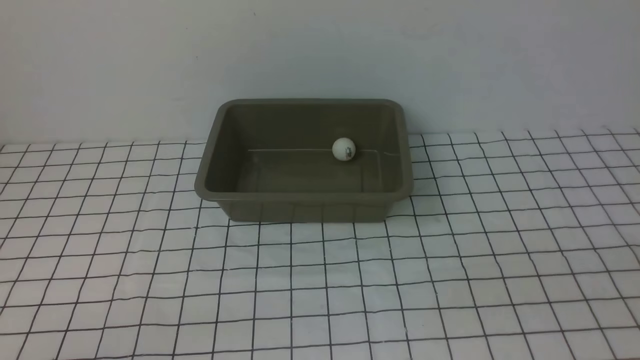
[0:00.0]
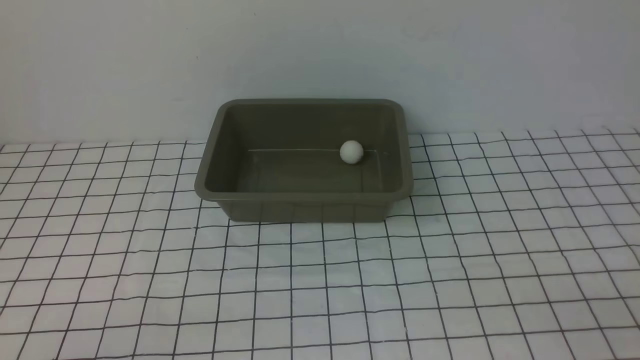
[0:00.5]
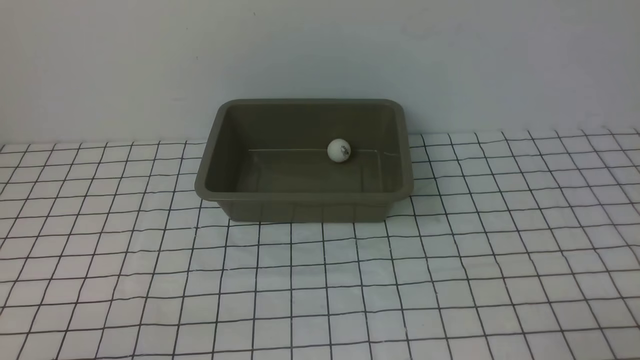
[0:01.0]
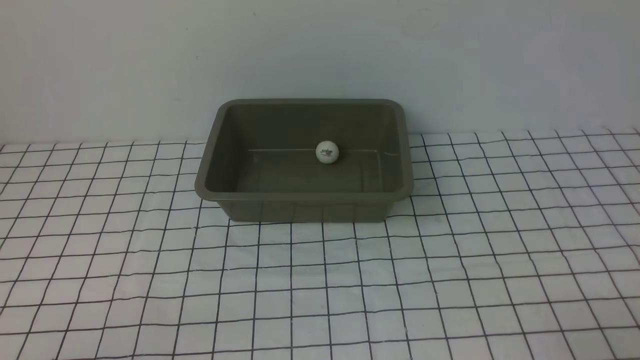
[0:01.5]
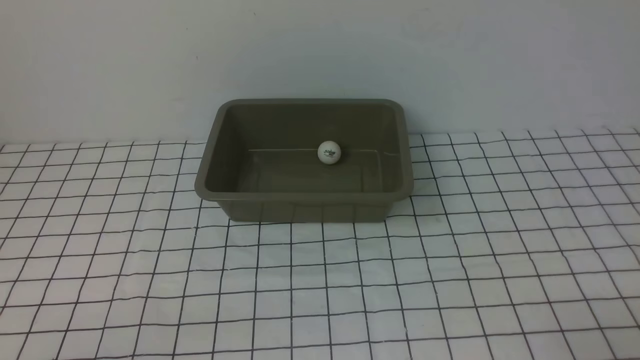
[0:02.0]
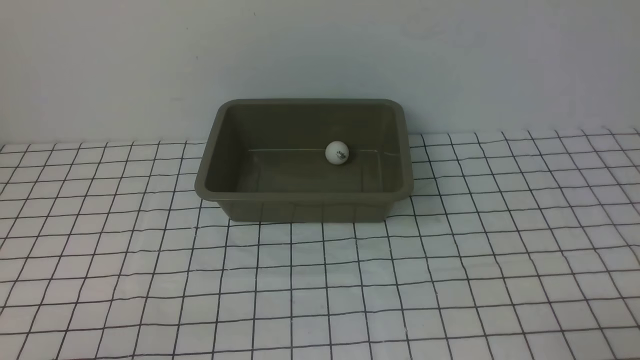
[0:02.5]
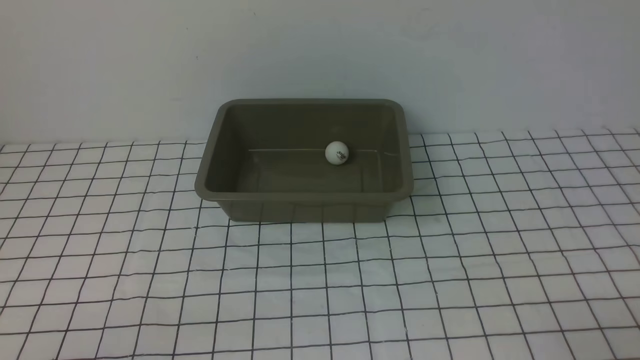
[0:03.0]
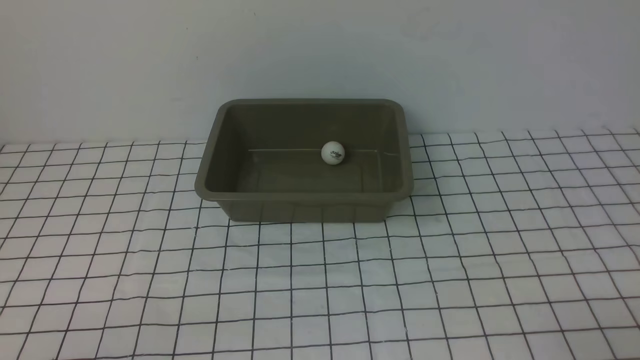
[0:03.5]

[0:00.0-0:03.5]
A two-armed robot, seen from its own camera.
2.0 to 3.5 s: Both grippers stay about where they are.

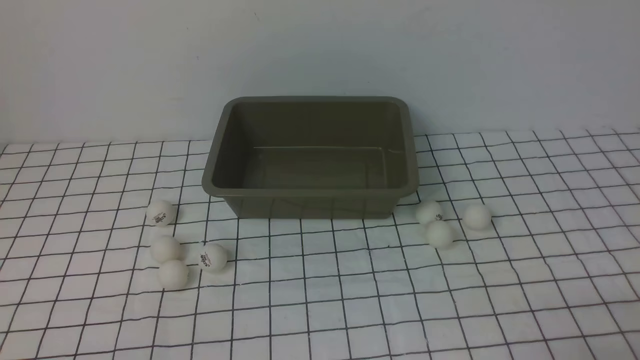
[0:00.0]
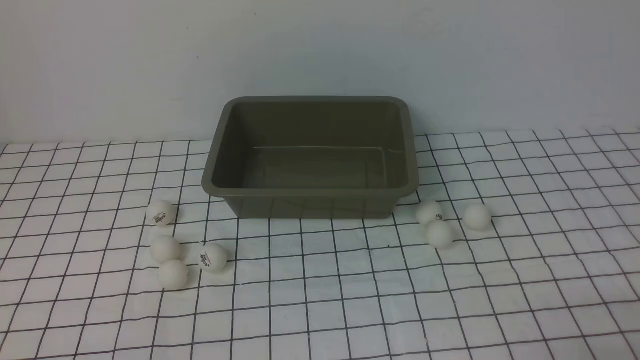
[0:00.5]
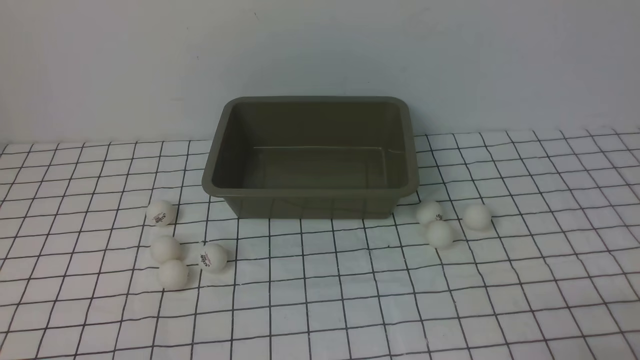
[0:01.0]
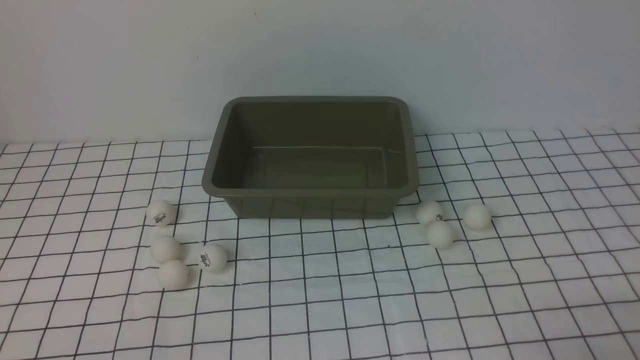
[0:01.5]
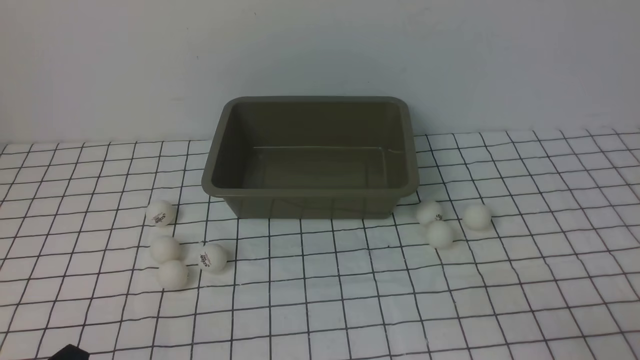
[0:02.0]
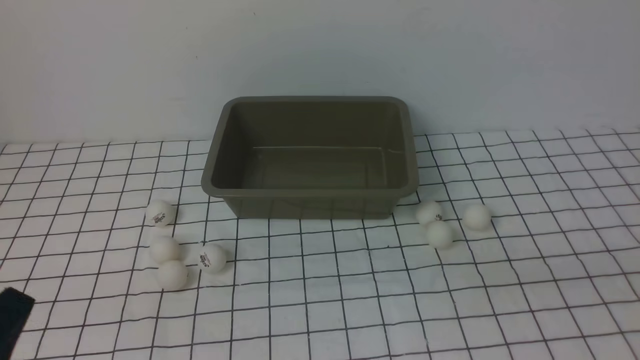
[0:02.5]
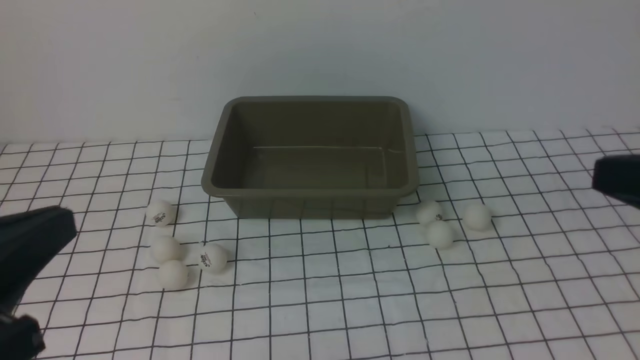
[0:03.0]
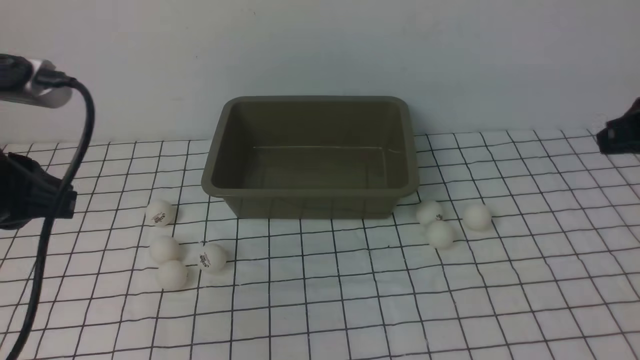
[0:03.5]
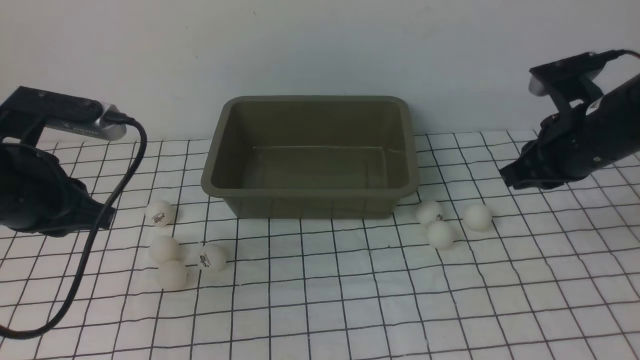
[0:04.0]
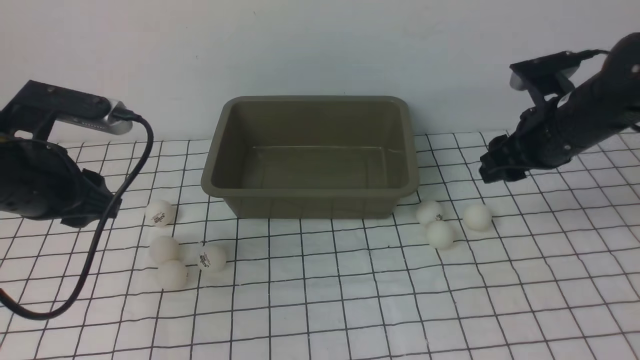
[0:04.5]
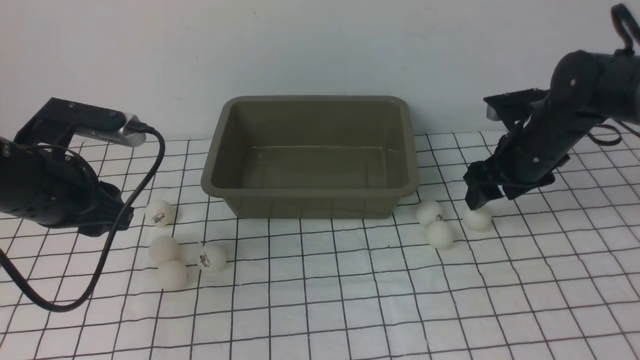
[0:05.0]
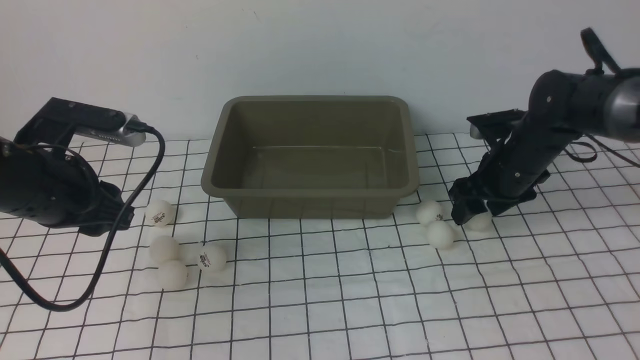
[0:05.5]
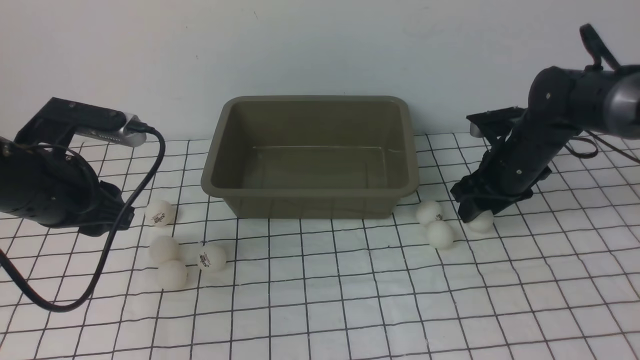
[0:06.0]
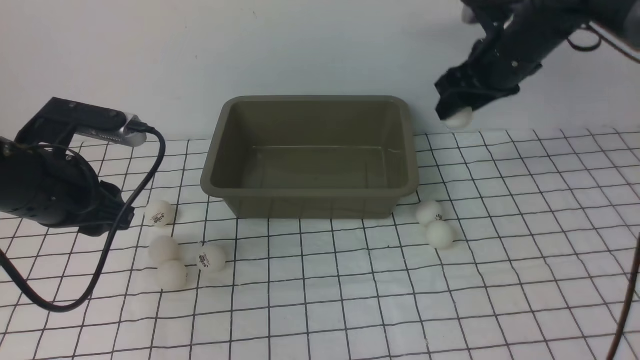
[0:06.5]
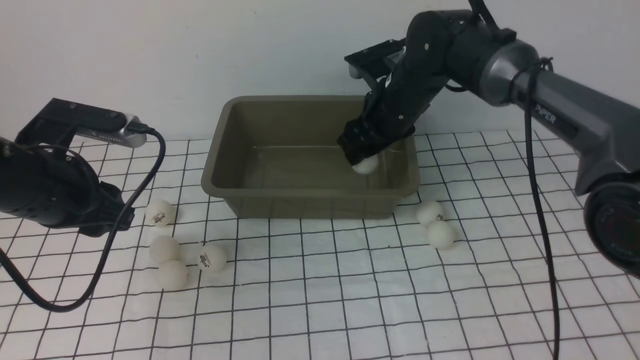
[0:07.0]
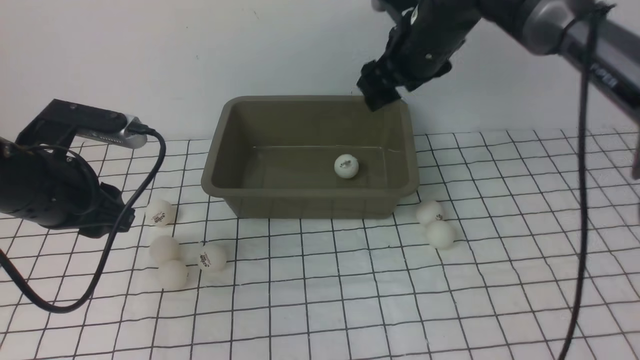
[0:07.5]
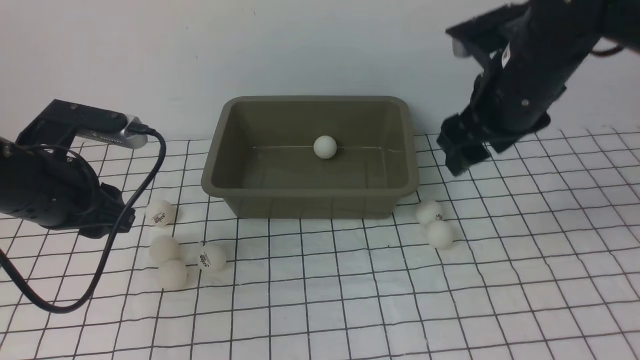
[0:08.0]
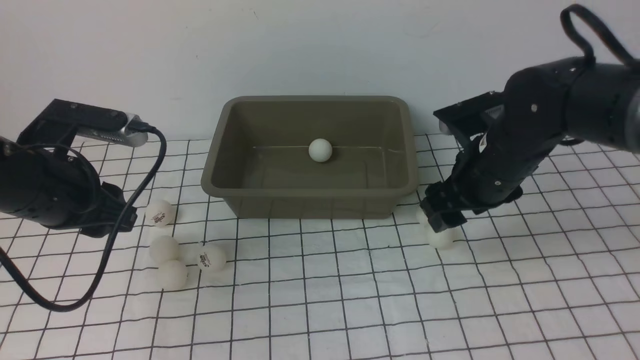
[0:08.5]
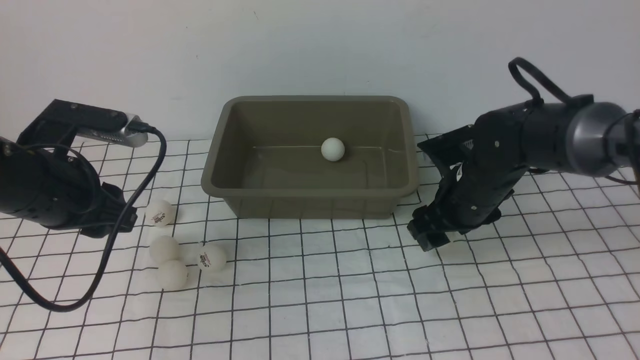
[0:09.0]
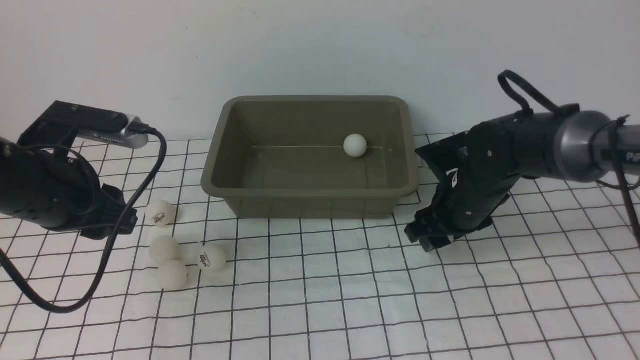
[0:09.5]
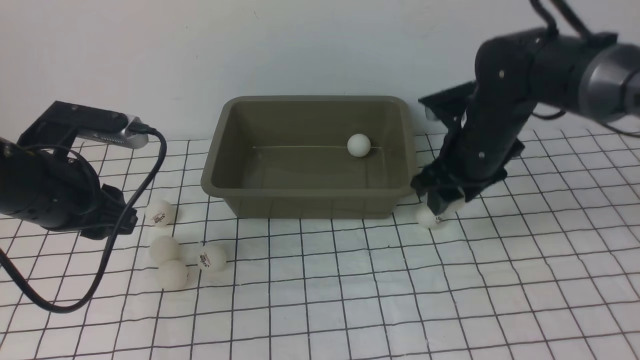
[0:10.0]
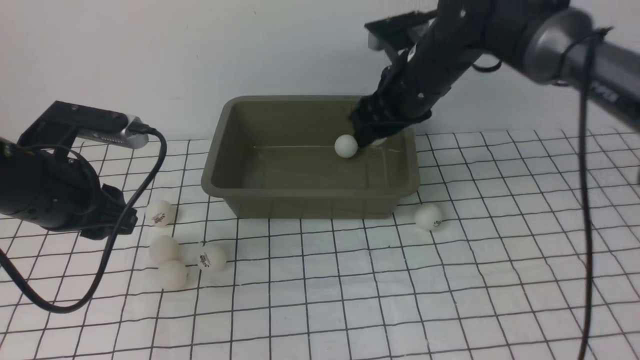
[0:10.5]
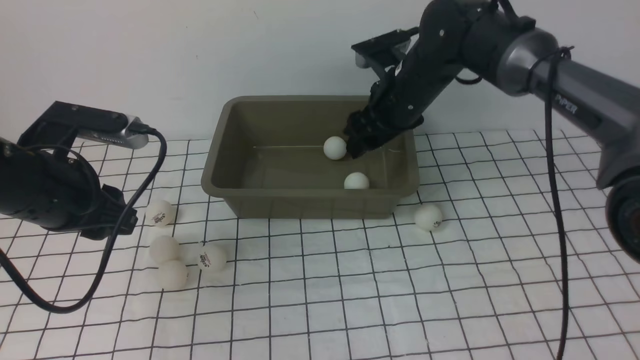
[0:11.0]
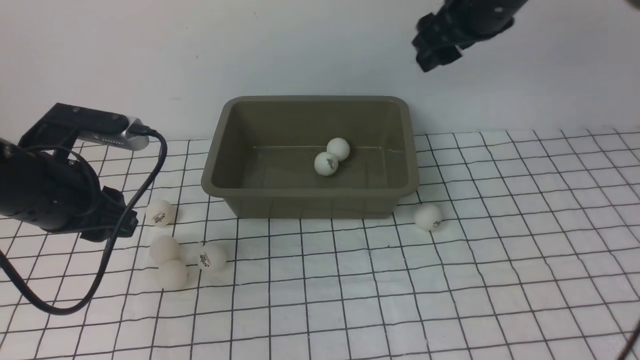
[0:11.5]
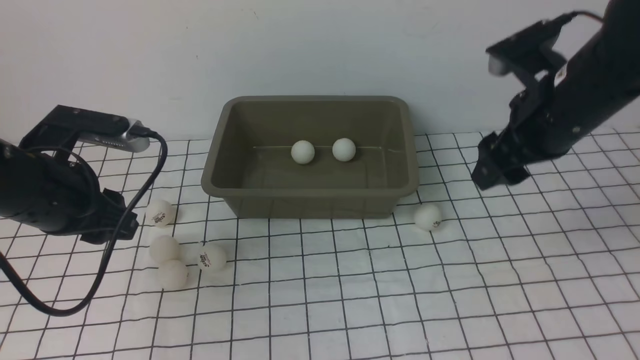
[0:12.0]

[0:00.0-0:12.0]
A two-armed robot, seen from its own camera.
Step, 0.0 to 6.0 s: use the right arm to clamp the table tennis ball closest to it.
Step, 6.5 to 7.0 s: use the right arm to put the table tennis ball into the box.
Step, 7.5 to 10.0 s: use the right arm to clamp the table tennis ball closest to it.
Step, 10.5 to 11.0 s: use the right arm to put the table tennis ball into the box.
2.0 to 4.0 s: The right gripper is displaced forward by roughly 25 cm. The left gripper heads forward and upward, covering approximately 25 cm.
4.0 to 6.0 s: The right gripper heads downward and forward, covering roughly 15 cm, and opens. The left gripper ends up approximately 5 cm from where it was, and opens its fingers.
6.0 to 8.0 s: The right gripper travels upward, backward and to the left by about 15 cm.
8.0 to 10.0 s: The right gripper reaches roughly 15 cm downward, then returns.
10.0 to 12.0 s: The right gripper goes some 10 cm to the right and upward.

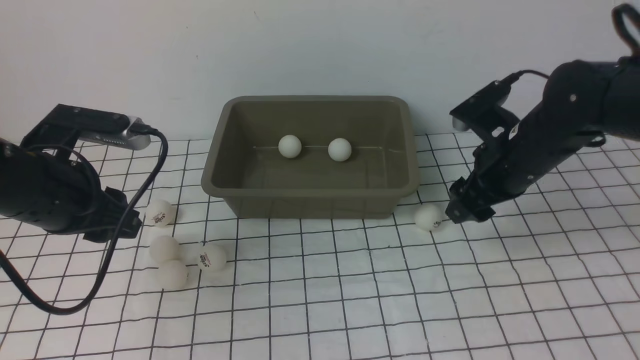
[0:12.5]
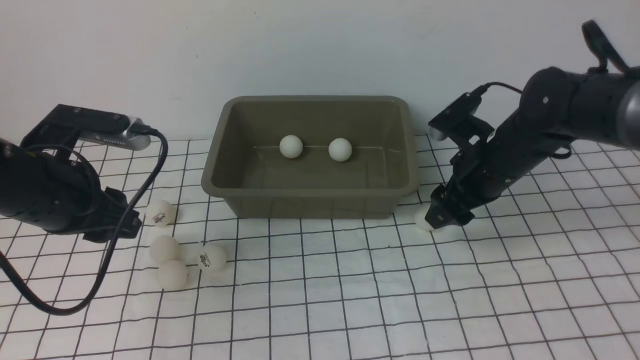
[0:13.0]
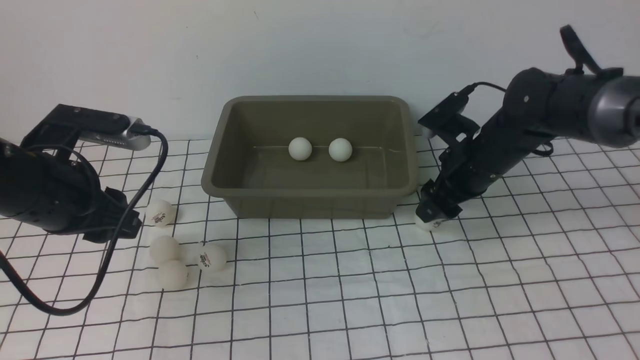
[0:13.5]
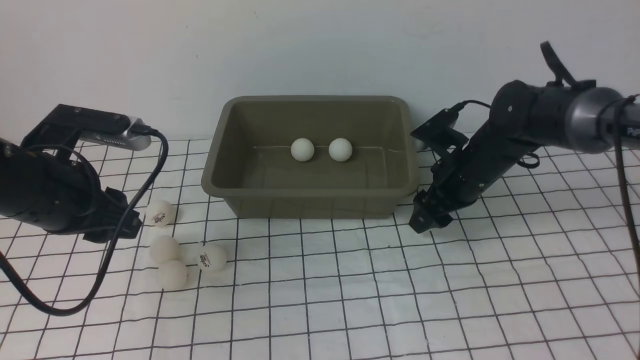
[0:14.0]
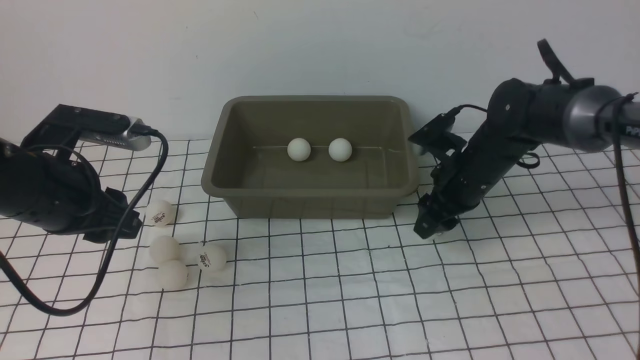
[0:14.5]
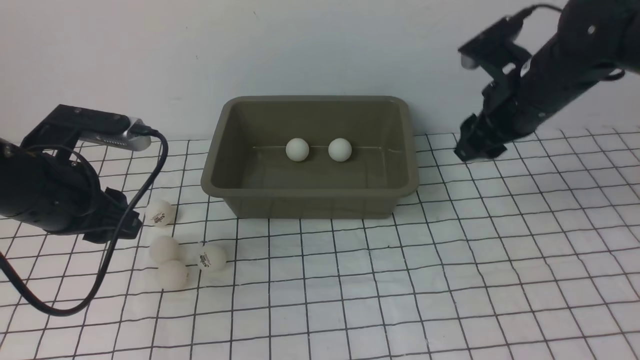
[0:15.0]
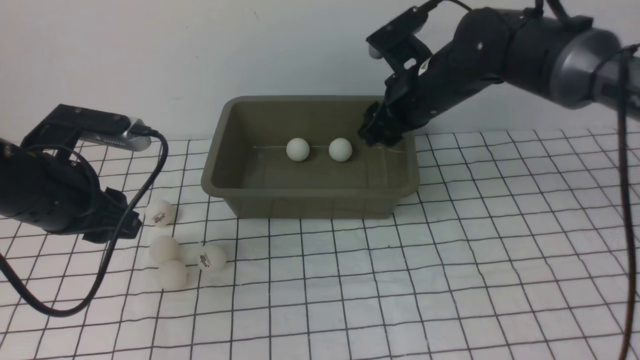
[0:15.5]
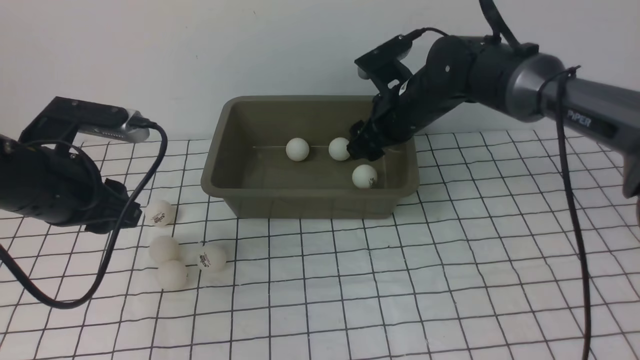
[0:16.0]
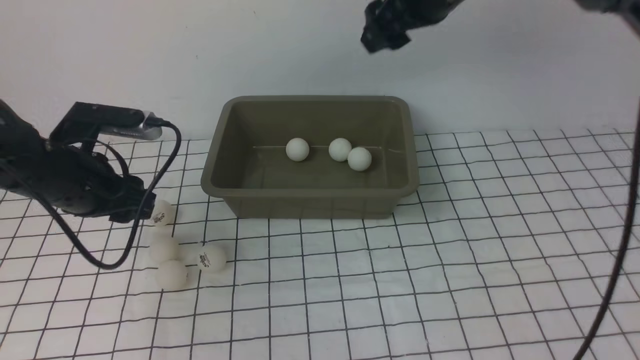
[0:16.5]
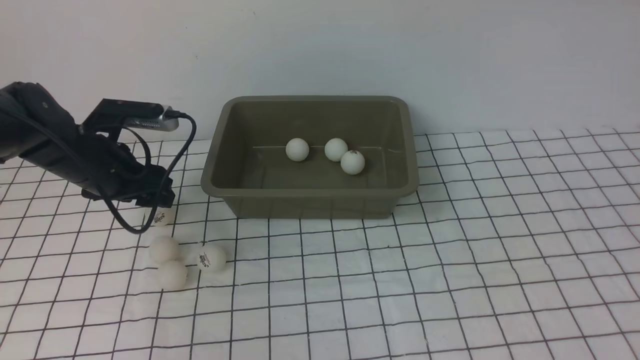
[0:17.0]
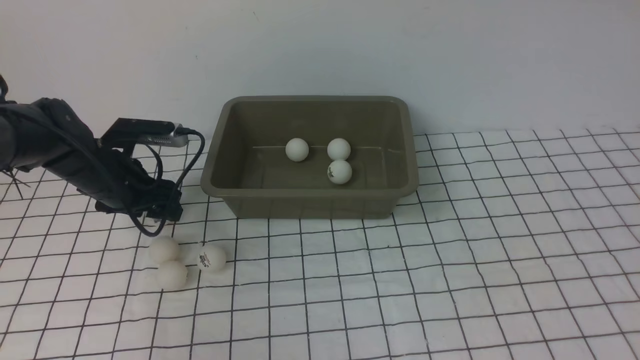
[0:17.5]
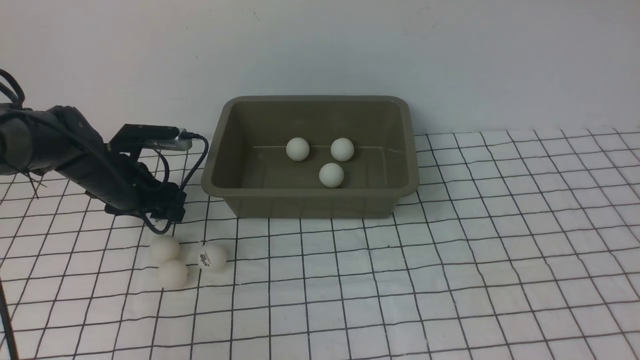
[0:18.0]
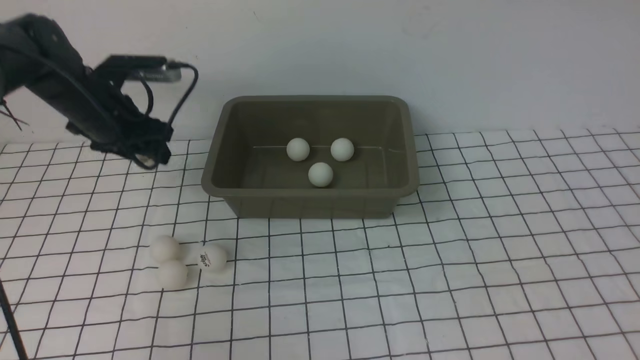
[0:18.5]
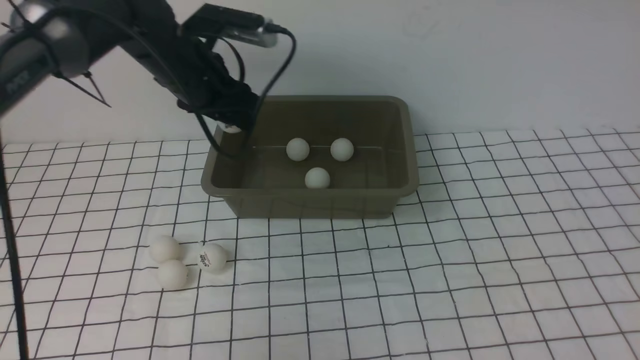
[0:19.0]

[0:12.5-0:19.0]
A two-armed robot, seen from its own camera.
Step, 12.5 to 14.5 s: use the right arm to clamp the table tennis ball closest to it.
Step, 15.0 to 16.0 s: use the right arm to put the table tennis ball into the box.
Step, 16.5 to 18.0 s: use the left arm to clamp the table tennis ball closest to it.
12.5 to 14.5 s: The right gripper changes place by some 5 cm.
14.5 to 17.0 s: The left gripper shifts approximately 10 cm forward and downward. Meanwhile the right gripper goes up and down, about 35 cm each way, reversing 2 times.
17.0 to 19.0 s: The left gripper heads to the right, upward and forward, covering about 15 cm; the right gripper ends up about 5 cm from where it was.
